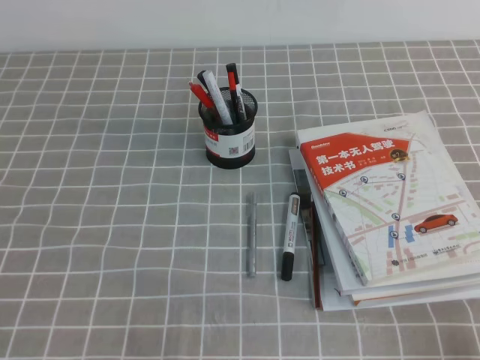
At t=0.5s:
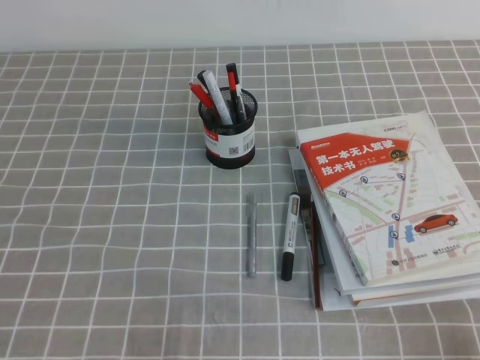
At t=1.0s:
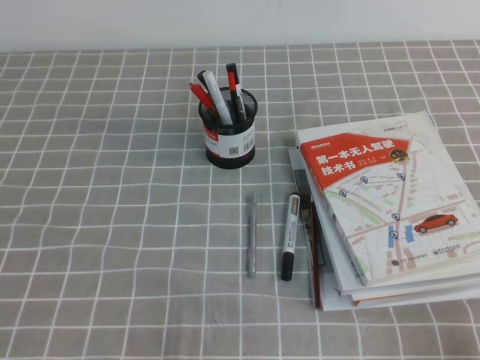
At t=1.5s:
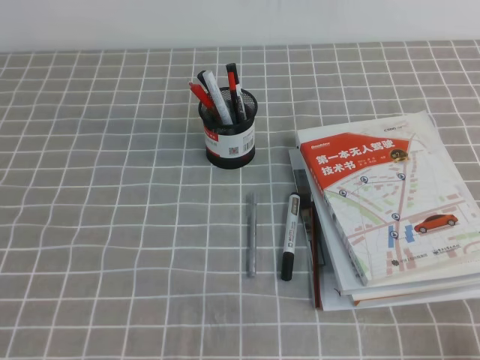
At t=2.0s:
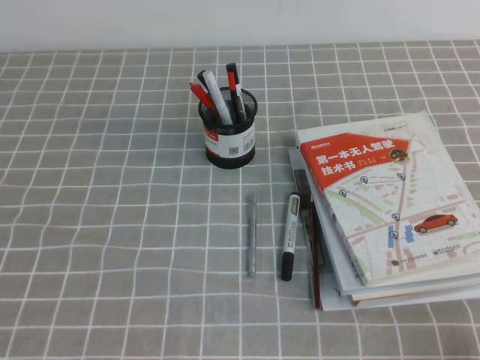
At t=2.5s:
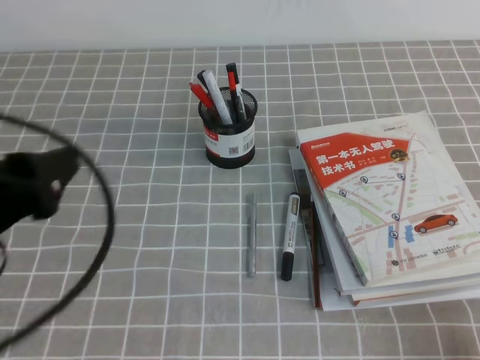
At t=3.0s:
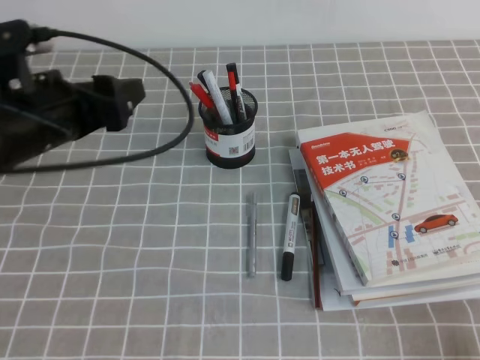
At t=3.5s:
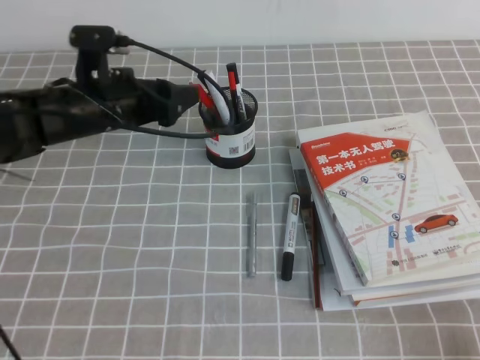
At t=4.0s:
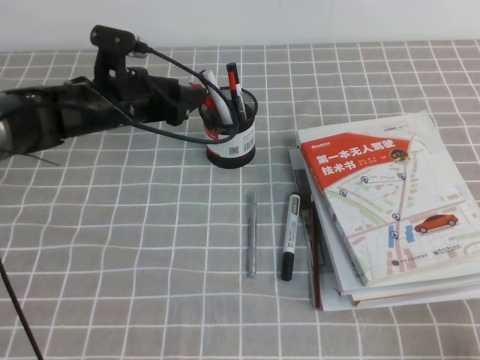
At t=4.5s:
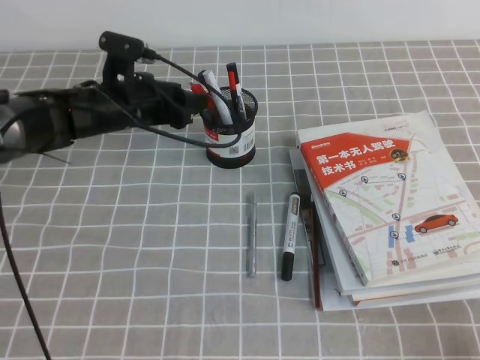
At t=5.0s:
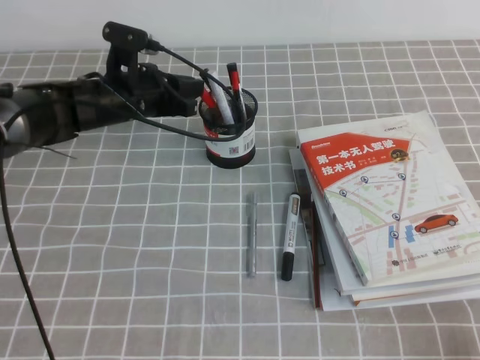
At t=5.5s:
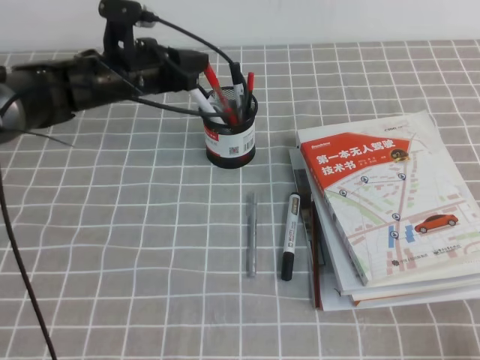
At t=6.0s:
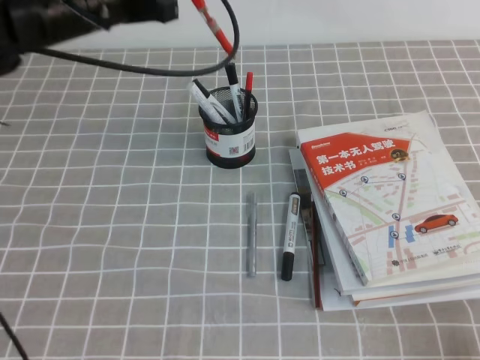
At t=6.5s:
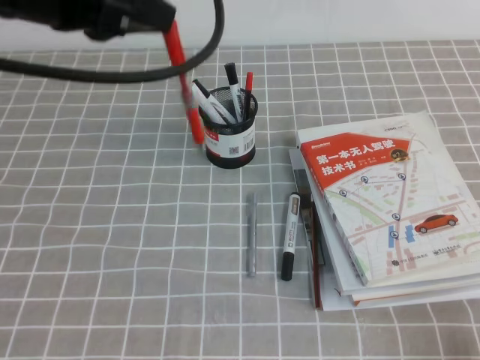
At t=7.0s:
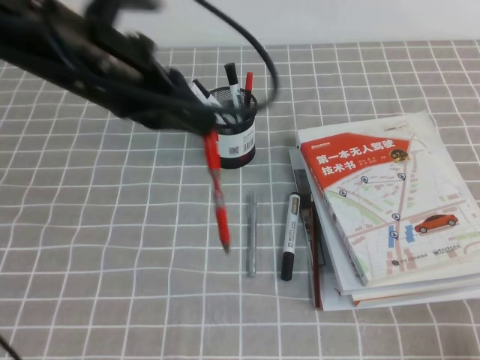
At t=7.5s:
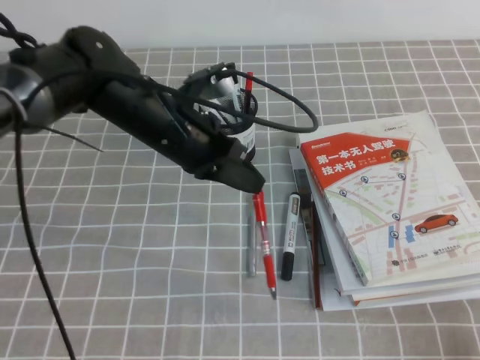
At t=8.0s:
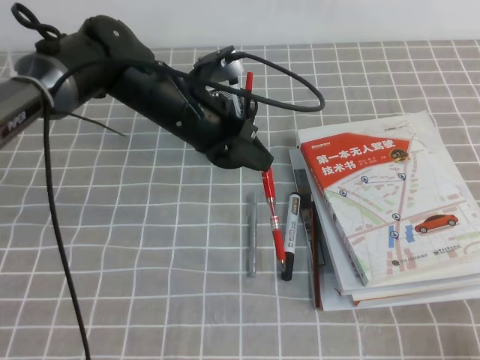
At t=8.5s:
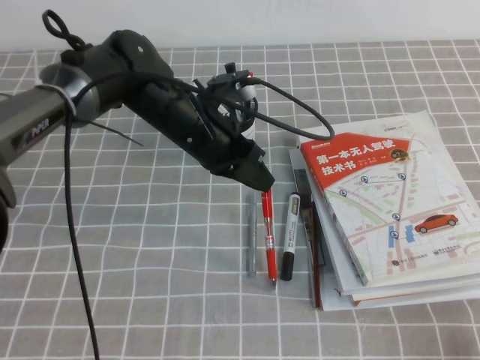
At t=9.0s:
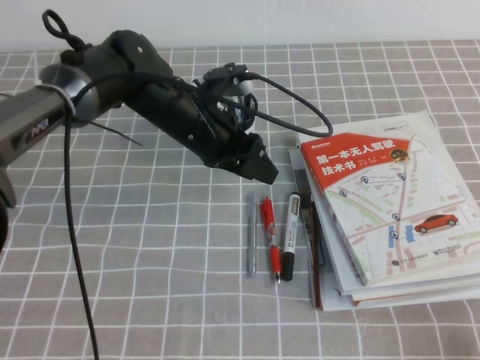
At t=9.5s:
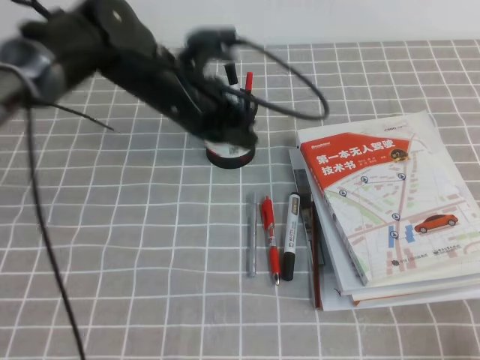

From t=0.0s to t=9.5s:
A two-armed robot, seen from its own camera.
From t=2.0s to t=4.0s: The left gripper goes approximately 35 cm forward, and opens its fingers.
From t=4.0s to t=5.5s: The left gripper closes its fingers.
From t=5.5s to t=7.5s: The left gripper travels backward and to the right by about 10 cm, and goes upward and returns, approximately 20 cm each way.
From t=7.5s to t=9.5s: There are only small adjustments of the grippers.

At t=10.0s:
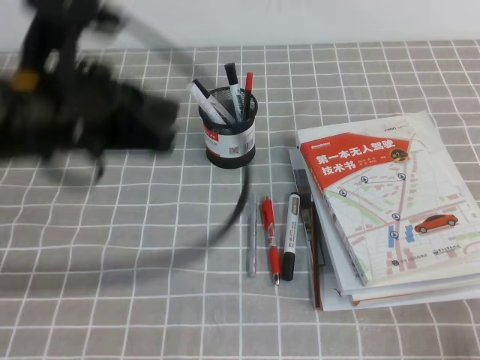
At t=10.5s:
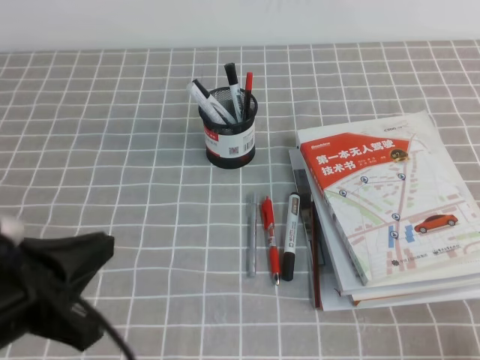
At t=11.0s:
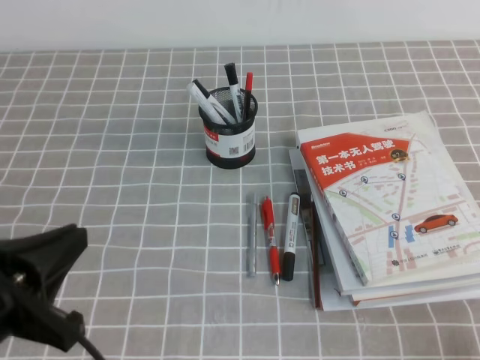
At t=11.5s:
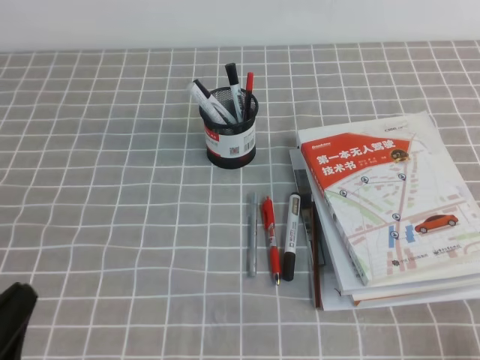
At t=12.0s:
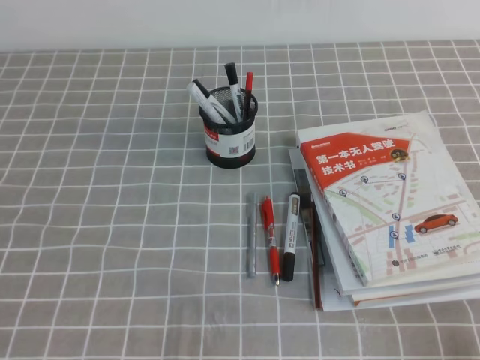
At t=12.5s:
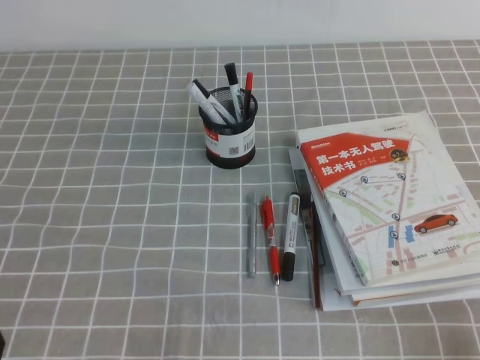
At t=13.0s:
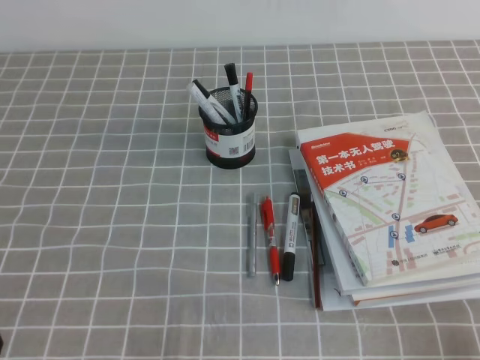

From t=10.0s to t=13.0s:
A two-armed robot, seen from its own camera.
Step, from t=10.0s to t=13.0s: Pick up the pen from the pen holder.
From t=10.0s to t=11.5s: The left gripper goes approximately 25 cm backward, downward and to the left.
From t=11.5s to t=13.0s: The left gripper shifts roughly 5 cm downward.

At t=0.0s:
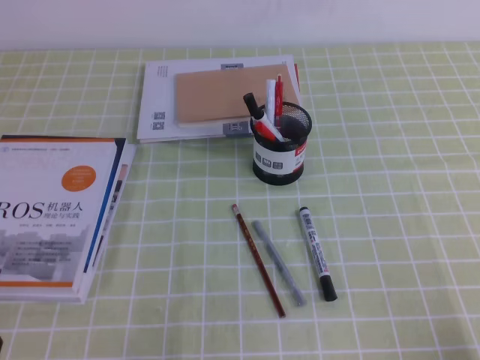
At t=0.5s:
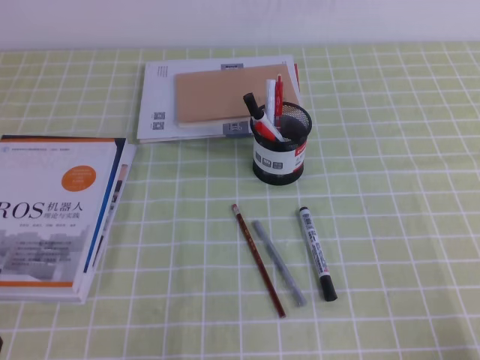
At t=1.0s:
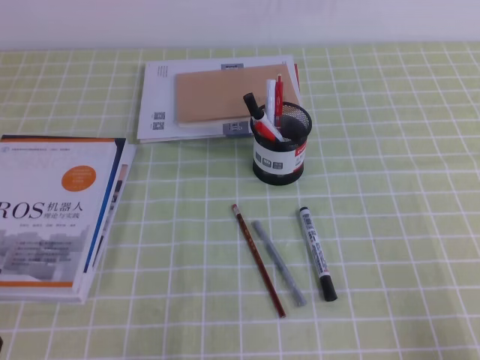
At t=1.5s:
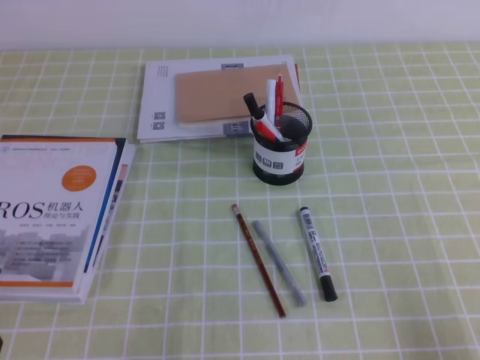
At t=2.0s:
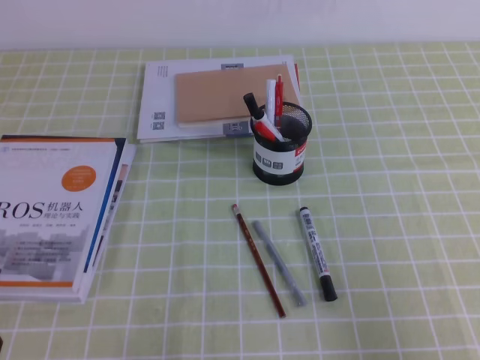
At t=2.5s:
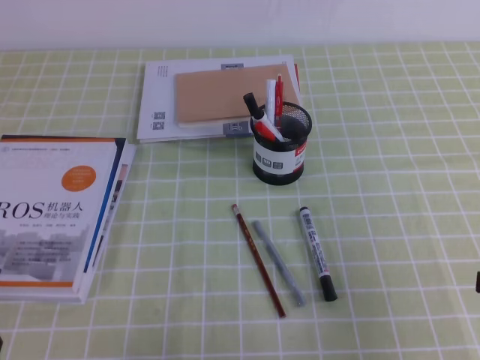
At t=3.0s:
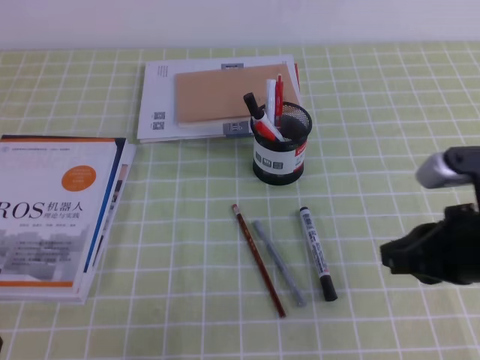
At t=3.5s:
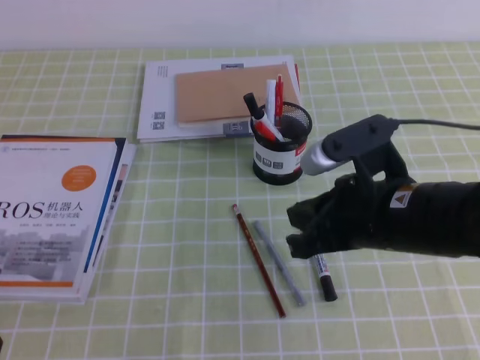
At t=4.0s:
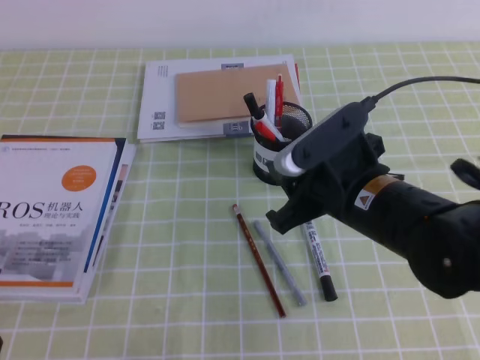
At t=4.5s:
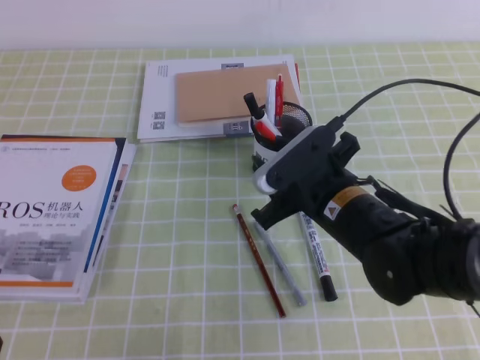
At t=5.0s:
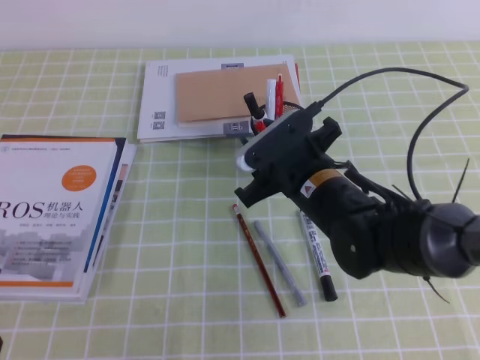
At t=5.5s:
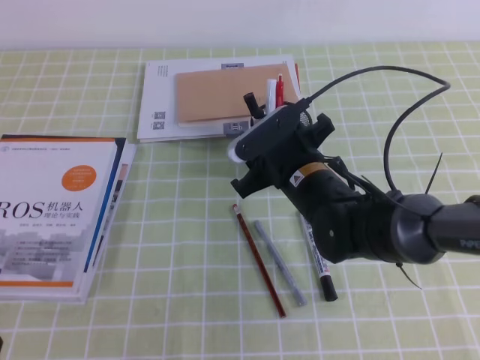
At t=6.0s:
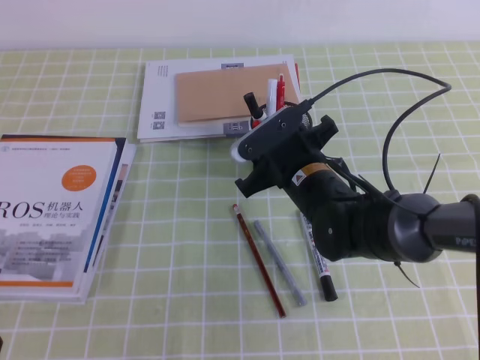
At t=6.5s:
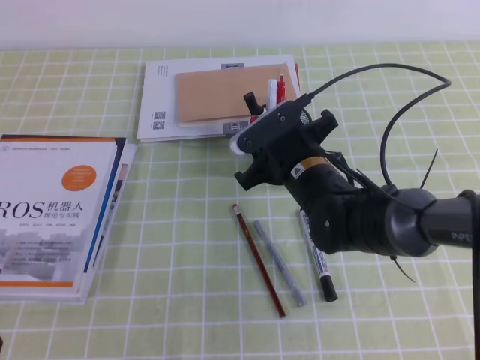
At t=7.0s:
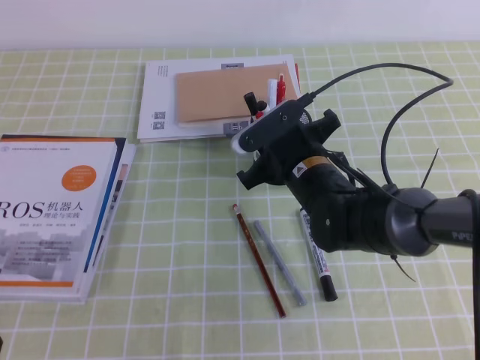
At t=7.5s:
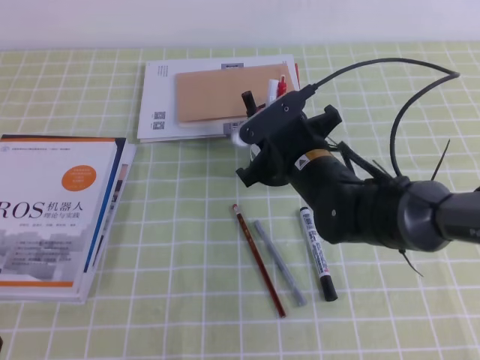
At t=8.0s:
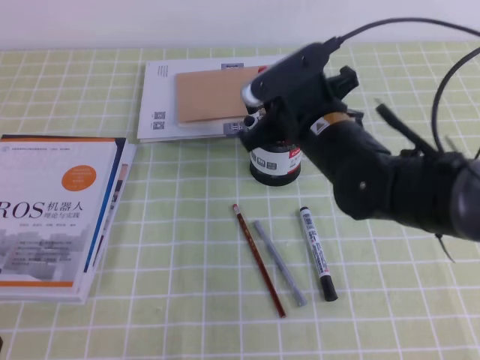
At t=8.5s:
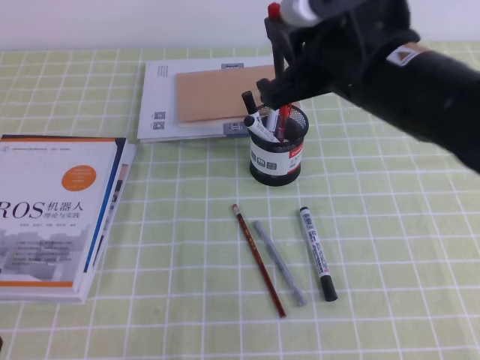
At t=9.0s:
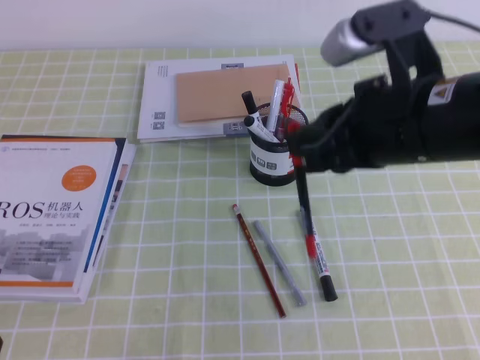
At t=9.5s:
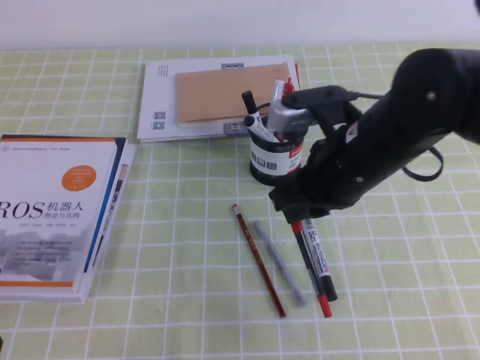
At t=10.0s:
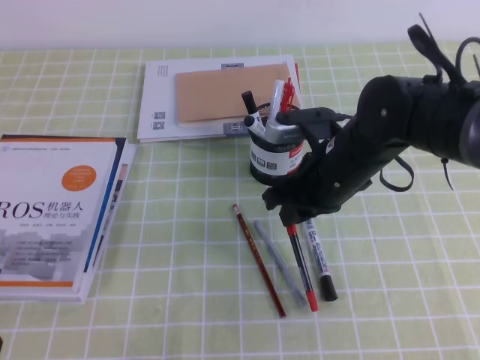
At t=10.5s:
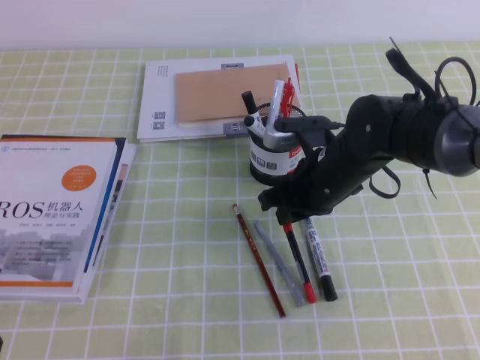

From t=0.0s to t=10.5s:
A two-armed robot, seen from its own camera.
Step, from t=0.0s to t=3.5s: Pick up the pen with the right gripper.
Step, from t=4.0s to t=6.5s: Place the pen on the table with the right gripper.
From t=0.0s to t=2.0s: The right gripper travels upward by some 10 cm.
From t=2.0s to t=4.0s: The right gripper is displaced to the left and forward by some 25 cm, and opens its fingers.
From t=4.0s to t=6.5s: The right gripper is displaced forward, downward and to the left by roughly 15 cm.
From t=6.5s to t=8.5s: The right gripper shifts roughly 20 cm upward and backward, and closes its fingers.
From t=8.5s to t=10.5s: The right gripper travels downward and forward by about 20 cm.

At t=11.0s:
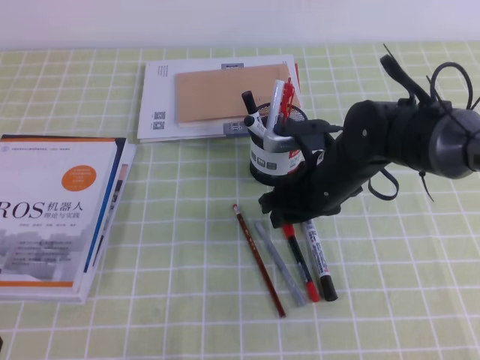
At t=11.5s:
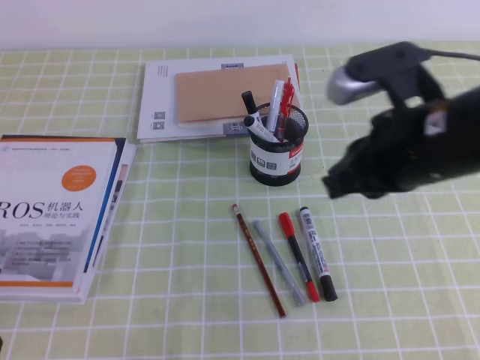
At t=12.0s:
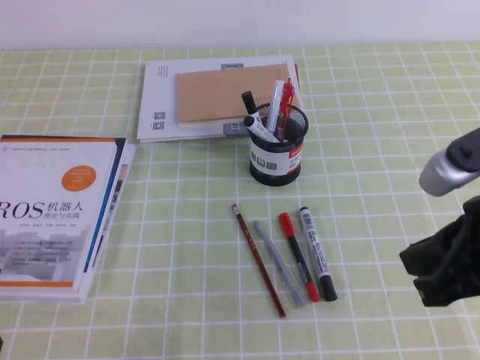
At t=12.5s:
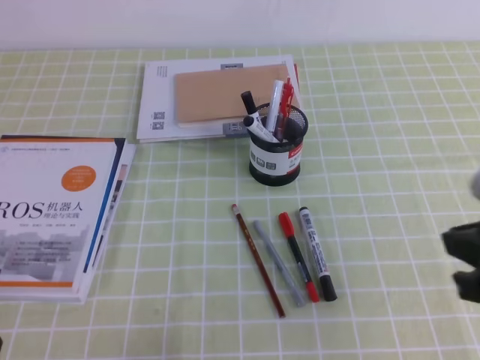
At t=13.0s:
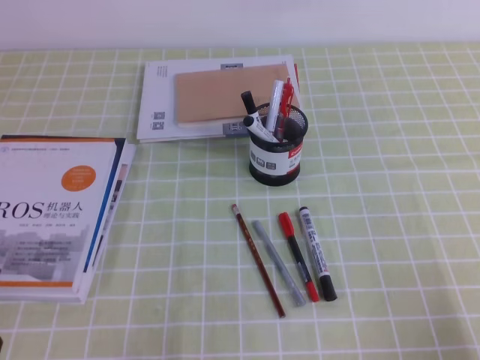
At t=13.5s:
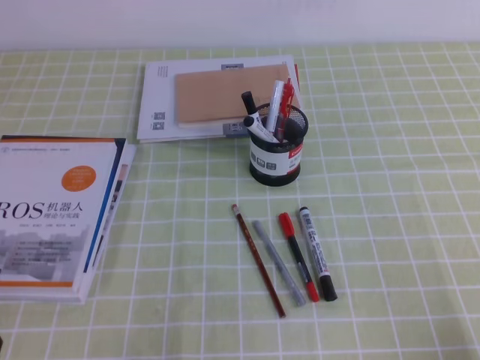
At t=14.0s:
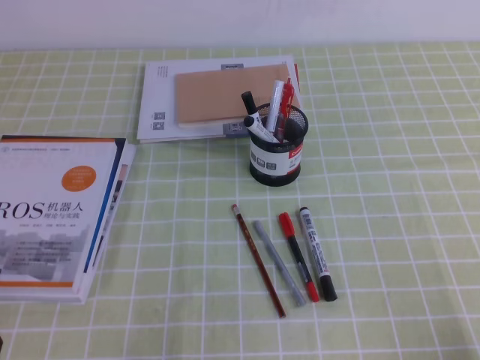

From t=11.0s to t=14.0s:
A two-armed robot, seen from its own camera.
From t=11.0s to t=12.5s: The right gripper shifts about 25 cm backward, to the right and upward, and closes up.
From t=12.5s to t=14.0s: The right gripper goes approximately 20 cm downward, backward and to the right.
